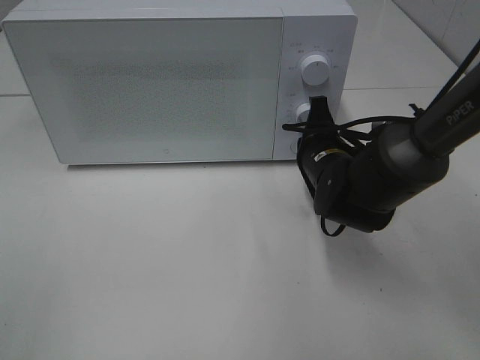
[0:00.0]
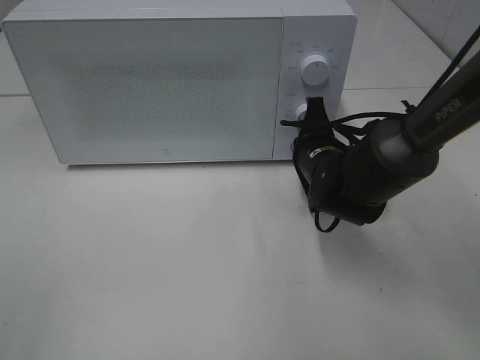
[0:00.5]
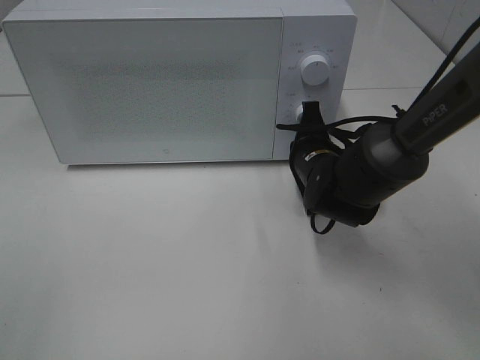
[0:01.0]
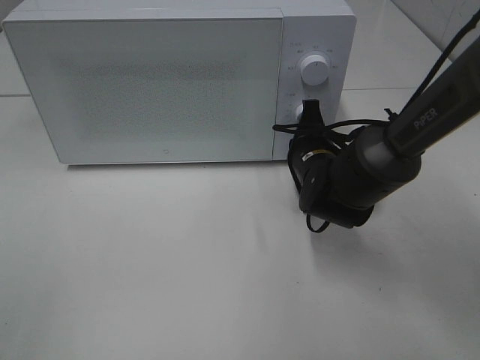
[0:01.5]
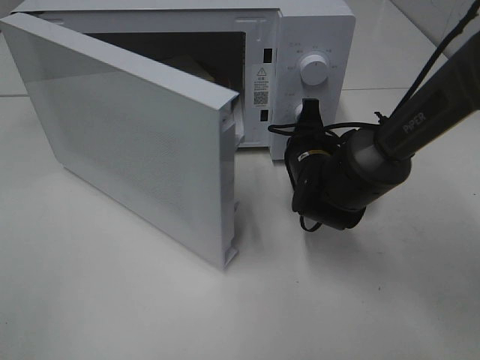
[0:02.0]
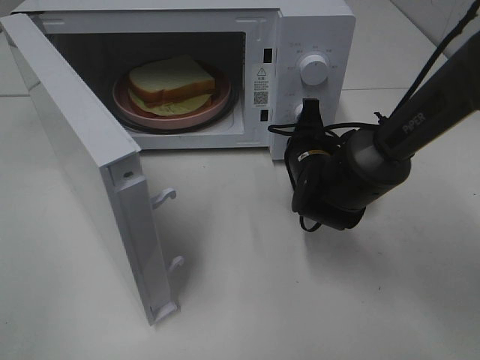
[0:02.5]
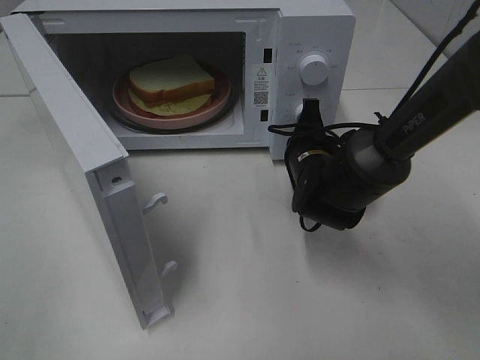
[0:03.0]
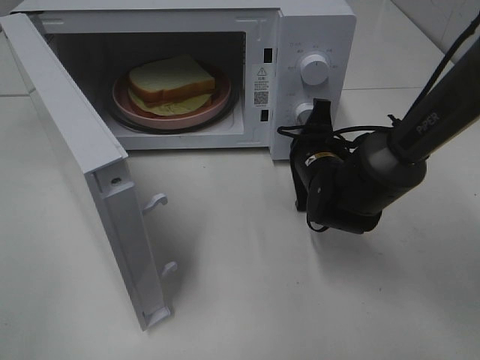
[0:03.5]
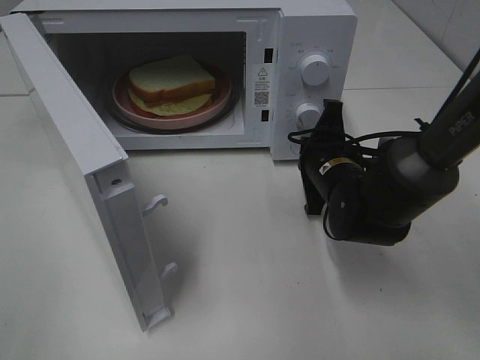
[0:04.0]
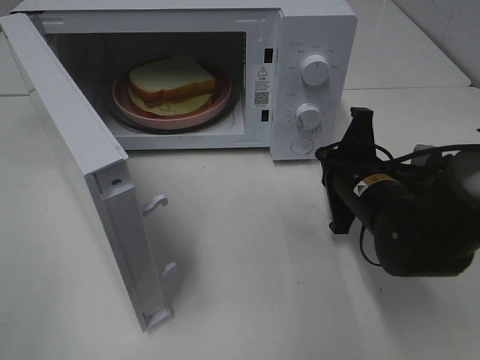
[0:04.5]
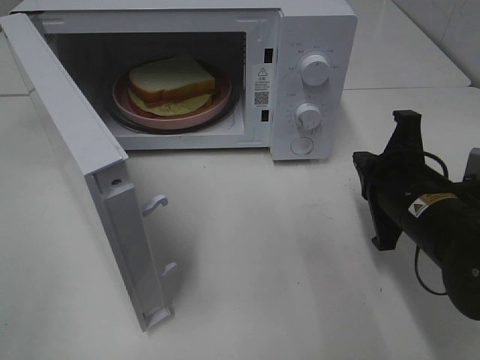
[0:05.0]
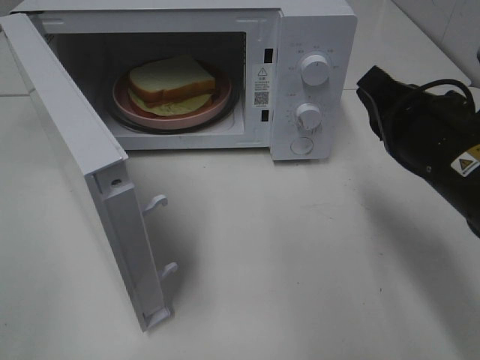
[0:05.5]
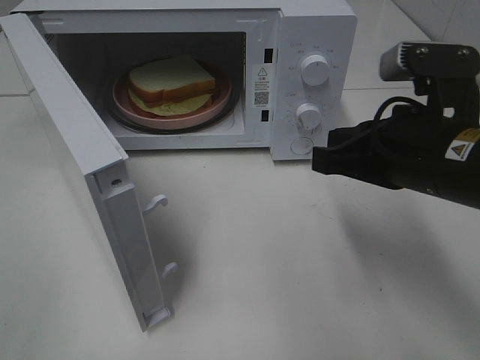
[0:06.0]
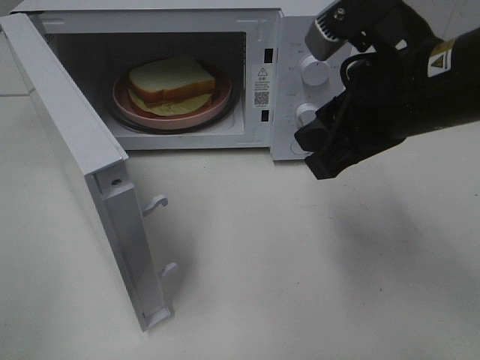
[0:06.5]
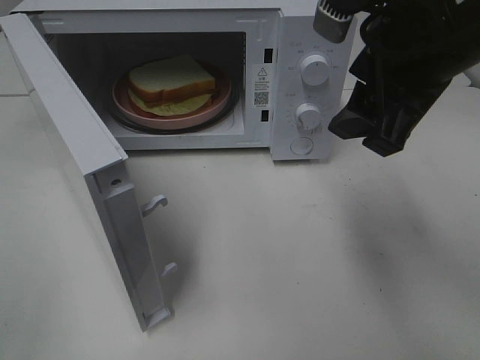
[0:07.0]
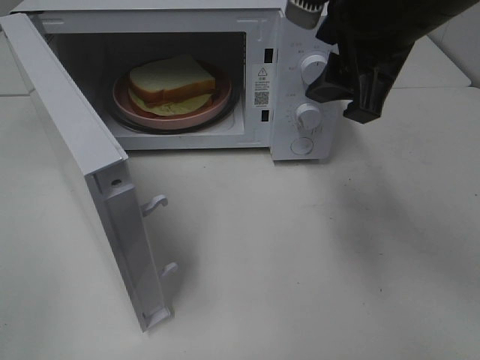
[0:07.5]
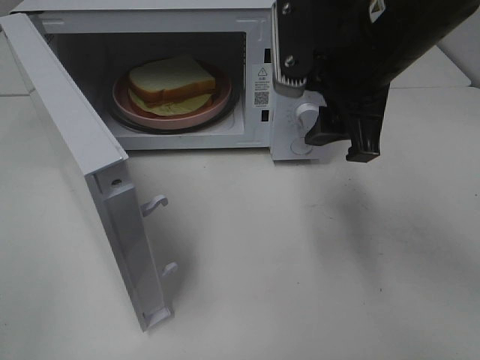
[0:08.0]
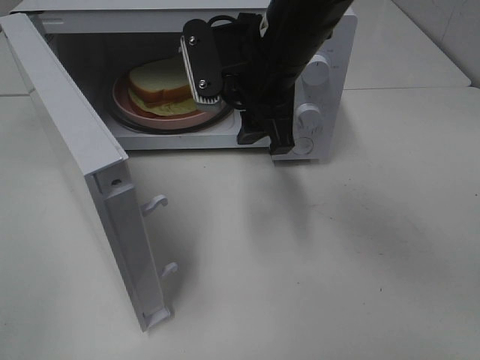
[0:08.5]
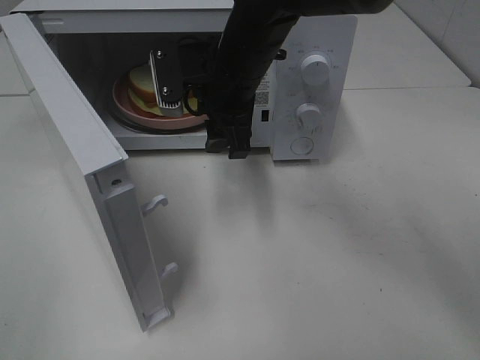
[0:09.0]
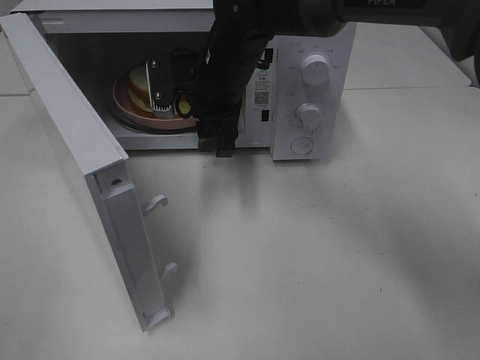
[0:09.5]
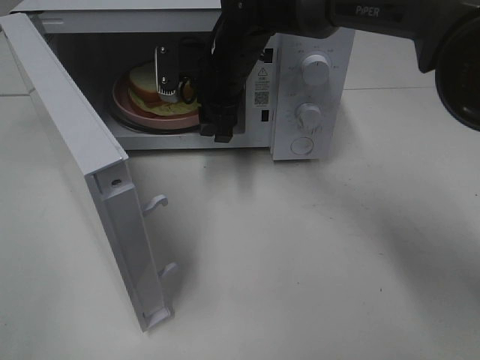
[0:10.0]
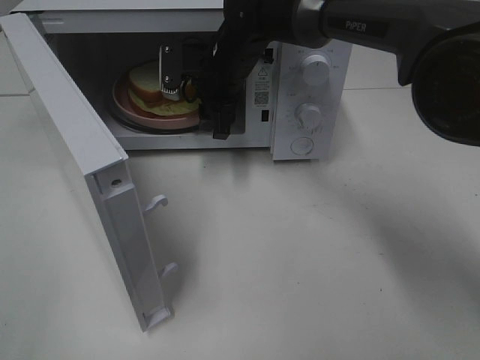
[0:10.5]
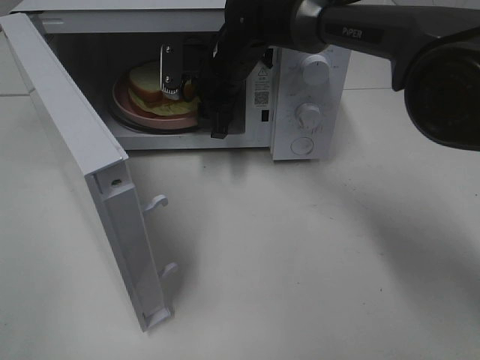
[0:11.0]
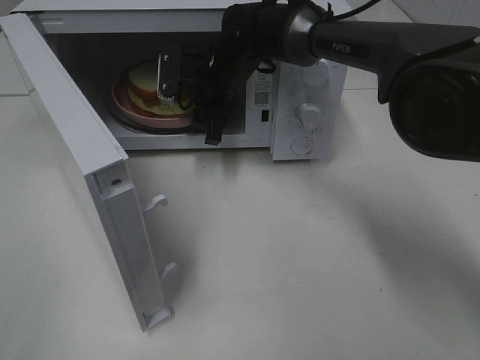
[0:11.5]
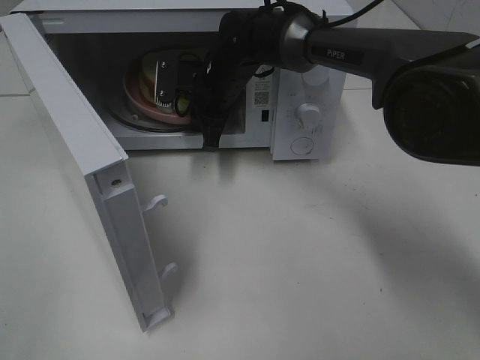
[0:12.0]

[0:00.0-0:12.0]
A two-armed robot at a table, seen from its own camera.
Task of the whole recording: Heat Sandwich.
Step, 0.0 to 4.0 s: Right hand: press the switch.
4.0 to 6.0 s: The right gripper is displaced upward and backward by roughly 15 cm.
6.0 to 8.0 s: The right gripper goes about 10 cm forward, upward and to the left, and opens.
8.0 to 10.0 s: The right gripper shifts about 20 cm forward, to the left and downward.
10.0 to 12.0 s: The right gripper shifts by some 5 cm, and closes.

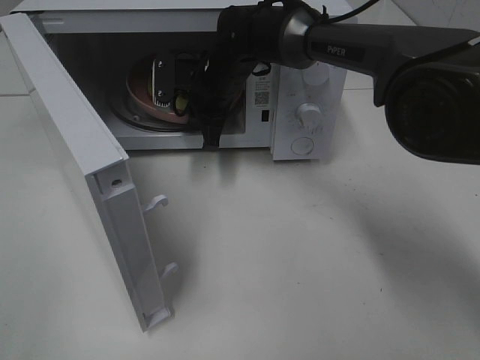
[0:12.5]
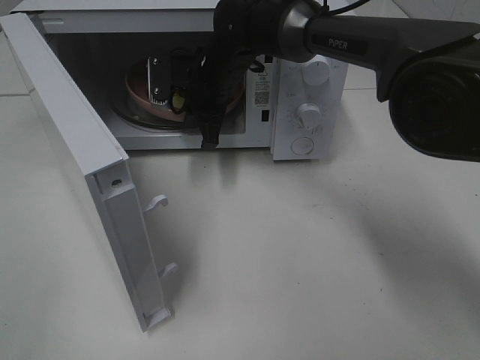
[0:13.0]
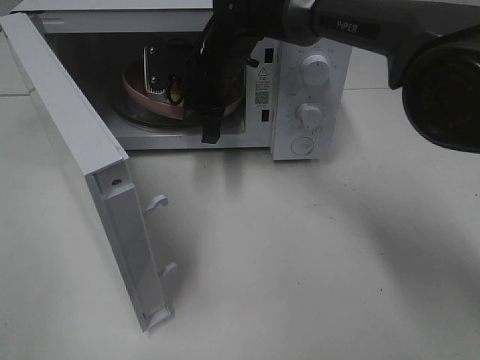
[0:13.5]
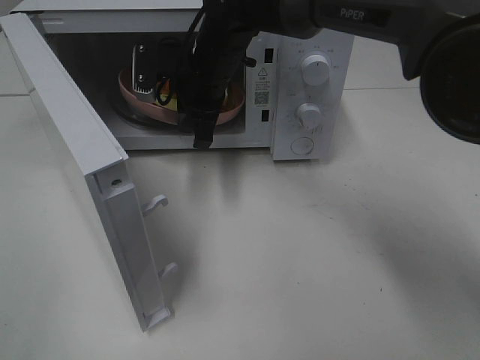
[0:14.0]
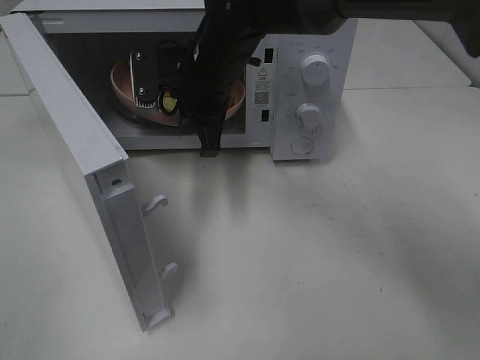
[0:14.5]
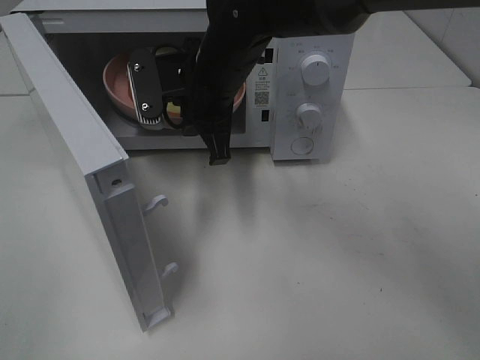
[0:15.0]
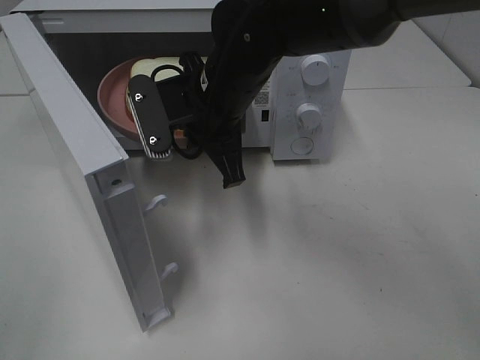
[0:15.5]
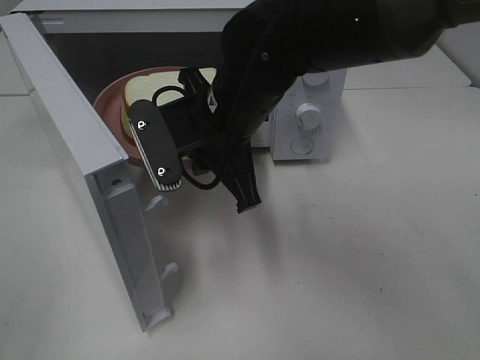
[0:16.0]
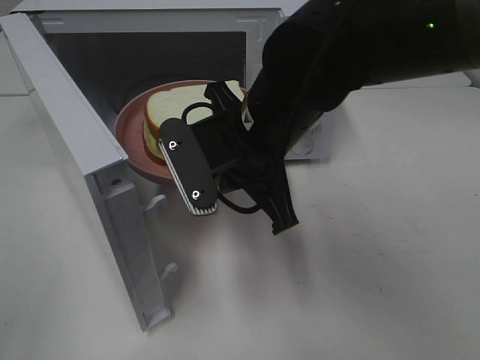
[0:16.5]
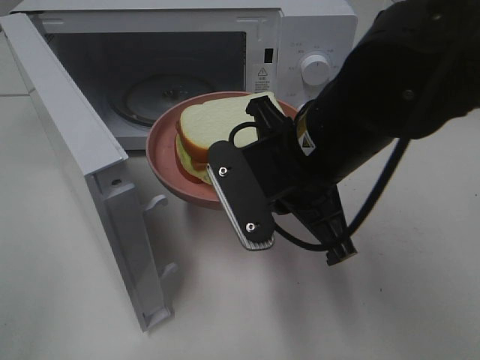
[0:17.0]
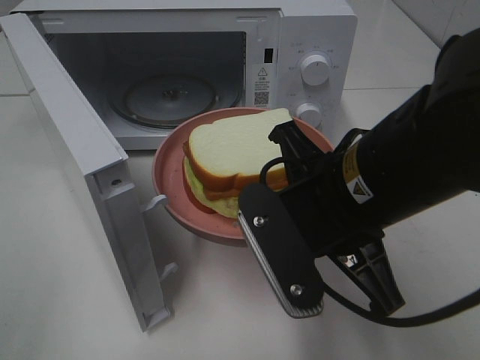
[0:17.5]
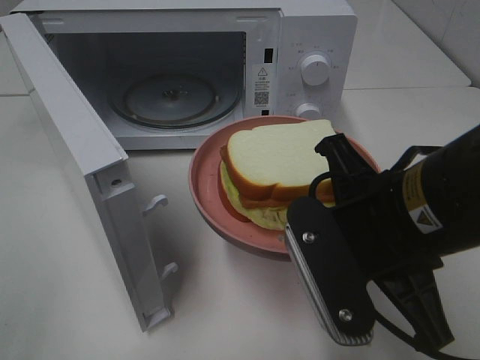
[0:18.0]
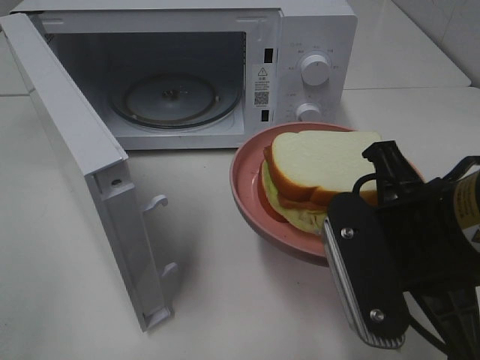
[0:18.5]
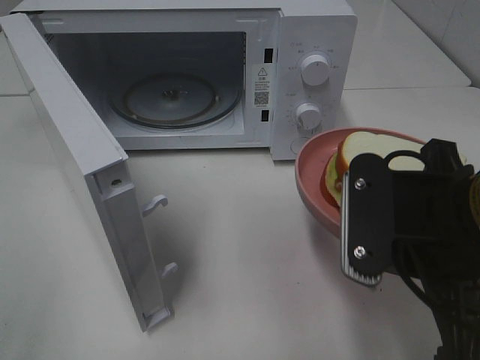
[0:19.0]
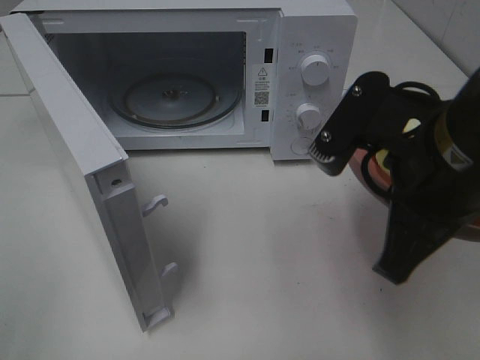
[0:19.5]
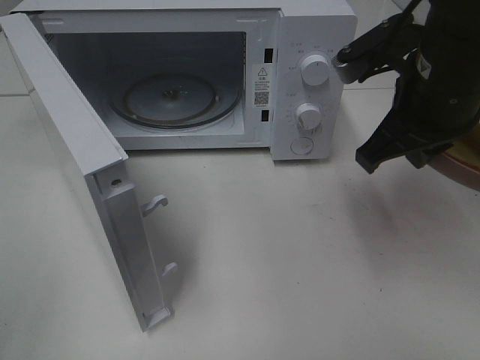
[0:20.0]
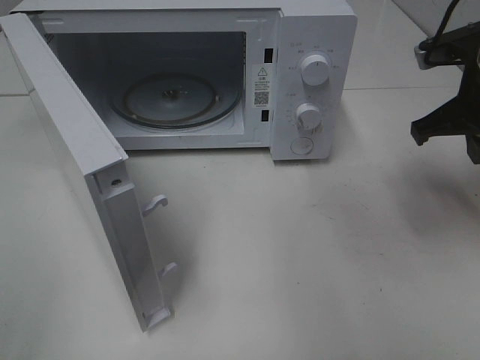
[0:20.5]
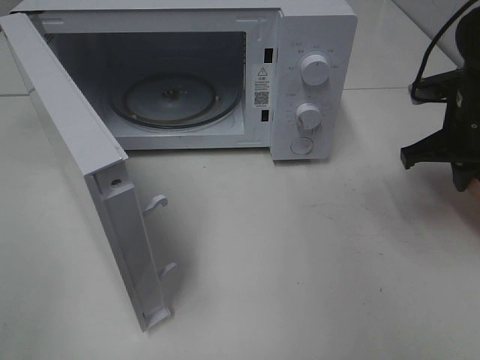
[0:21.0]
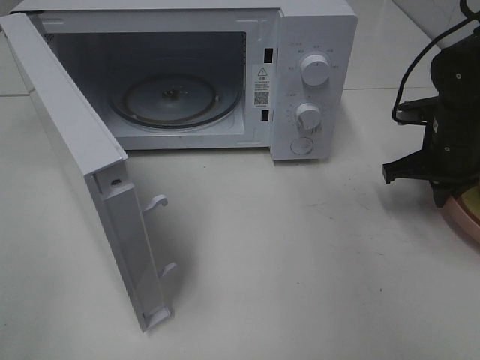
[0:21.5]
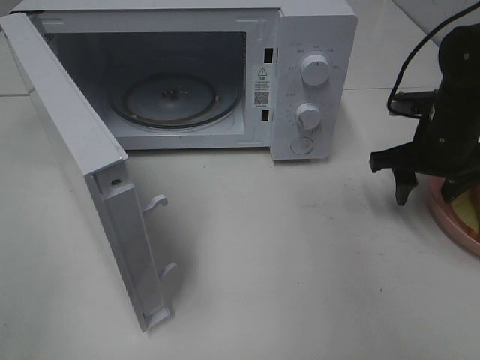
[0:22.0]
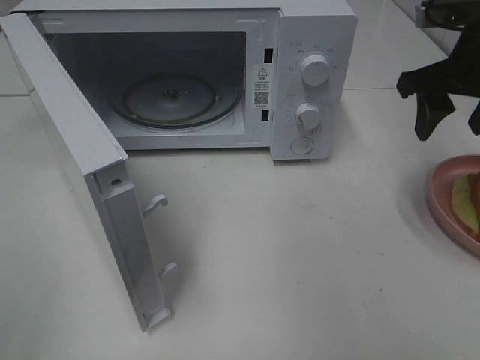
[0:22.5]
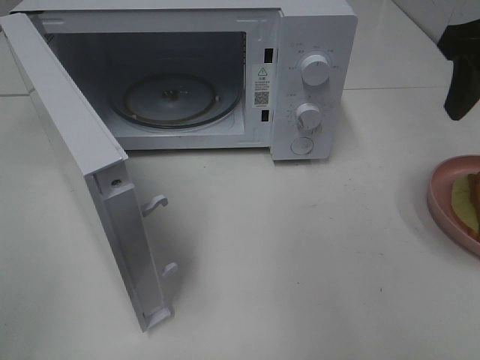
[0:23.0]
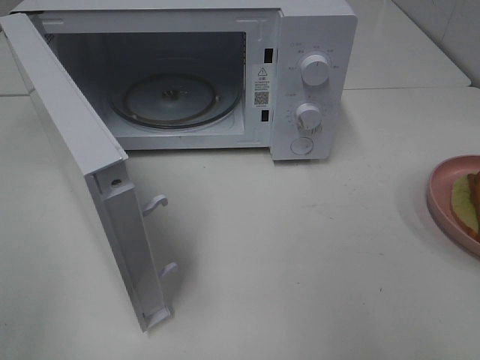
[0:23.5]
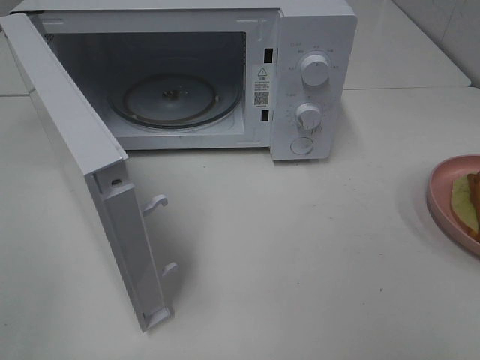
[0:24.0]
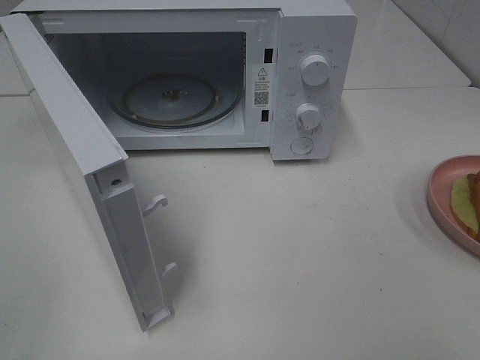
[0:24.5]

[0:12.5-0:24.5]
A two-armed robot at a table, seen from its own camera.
Task of the whole recording: Heat Sandwich.
Step, 13.0 to 22.5 s: Right hand: place the plate on the table.
12.5 to 14.5 s: The right gripper heads backward and upward, covering some 10 cm.
14.5 to 16.5 s: The right gripper heads backward, covering roughly 15 cm.
16.5 to 18.5 s: The right gripper is displaced backward and to the right by about 15 cm.
18.5 to 20.5 s: The right gripper shifts approximately 20 cm forward and to the right.
20.5 to 22.5 s: The right gripper travels downward and back again, some 10 cm each way, and opens.
22.5 to 24.5 s: The right gripper goes about 35 cm backward.

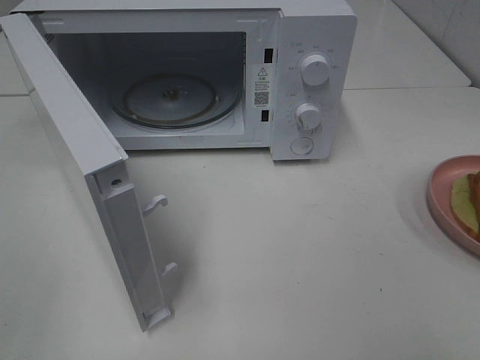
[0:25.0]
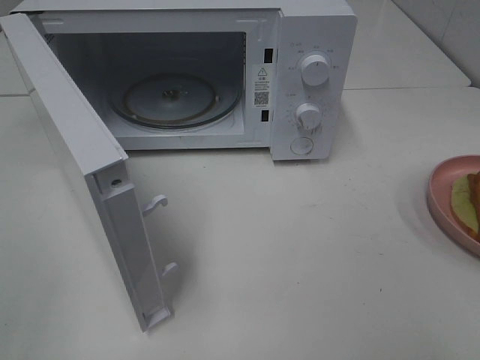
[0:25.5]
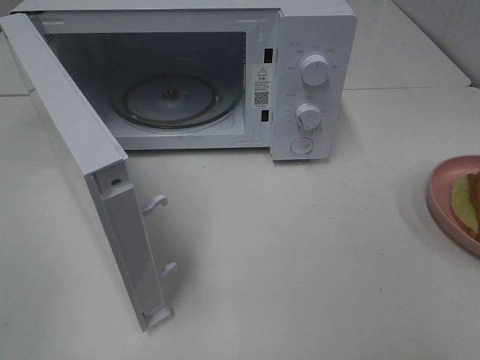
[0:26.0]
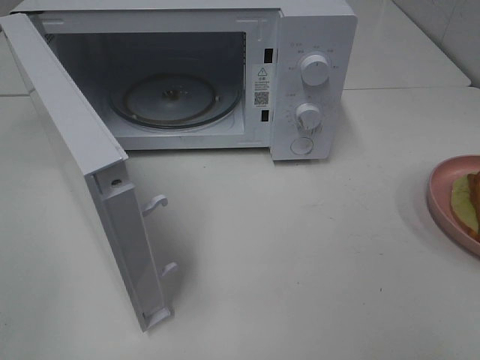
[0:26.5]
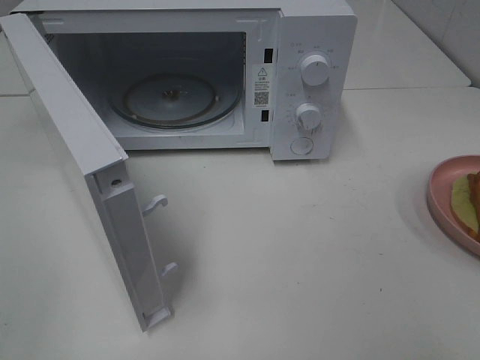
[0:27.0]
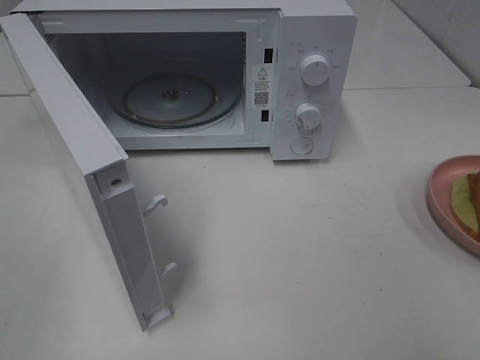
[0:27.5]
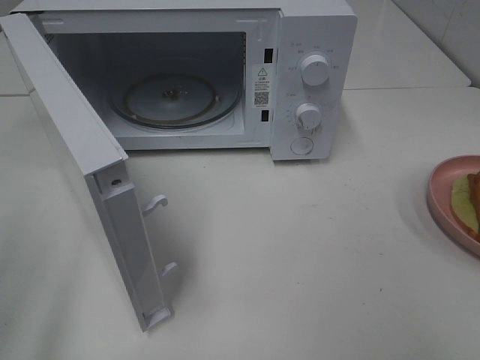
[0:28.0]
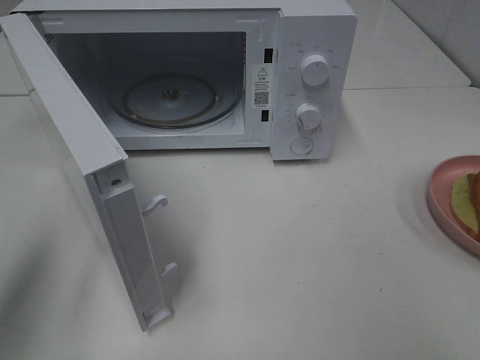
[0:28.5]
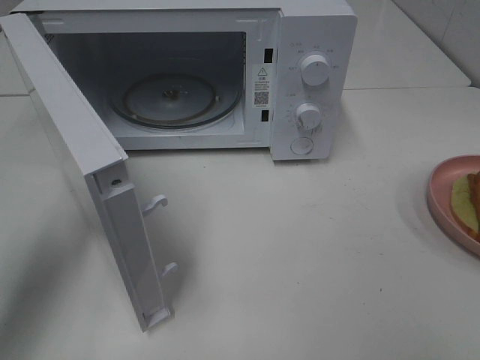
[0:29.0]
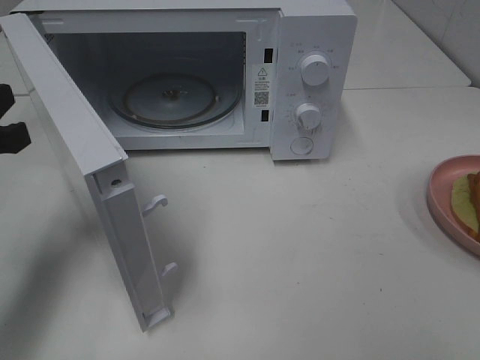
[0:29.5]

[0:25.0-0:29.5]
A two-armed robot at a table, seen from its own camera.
Task of the whole recording: Heat Sandwich.
25.0 to 27.0 s: The two grippers keep their place.
27.0 to 29.5 s: The left gripper goes about 20 cm forward, and closes its fingers.
